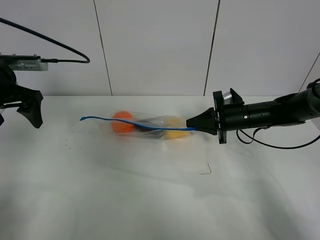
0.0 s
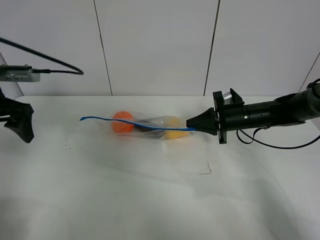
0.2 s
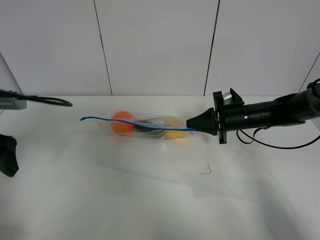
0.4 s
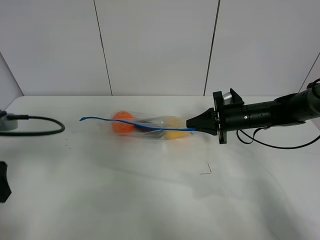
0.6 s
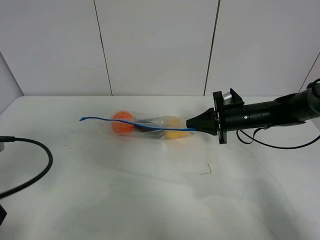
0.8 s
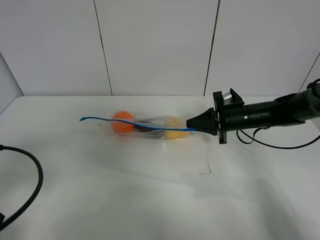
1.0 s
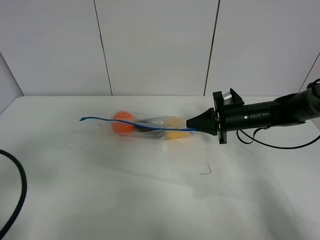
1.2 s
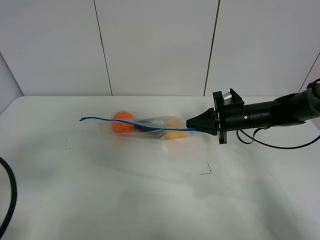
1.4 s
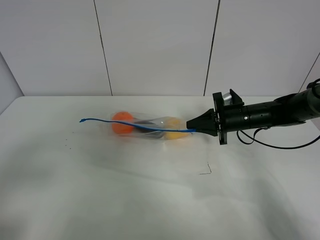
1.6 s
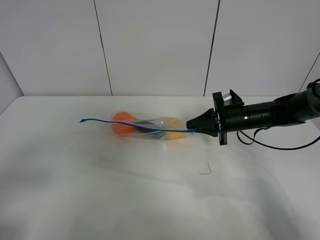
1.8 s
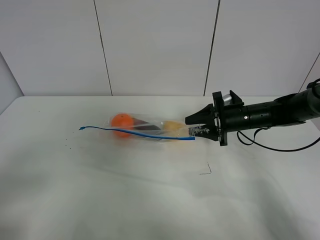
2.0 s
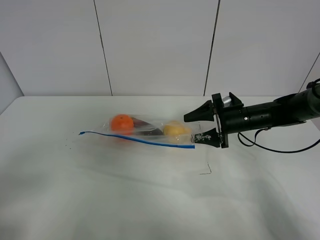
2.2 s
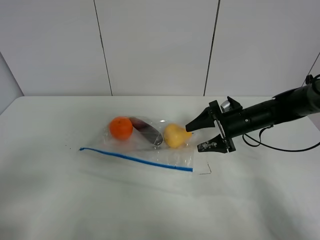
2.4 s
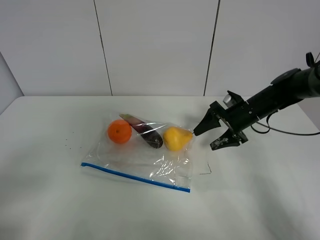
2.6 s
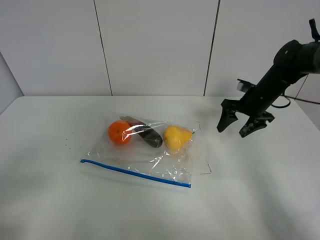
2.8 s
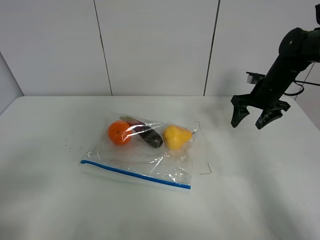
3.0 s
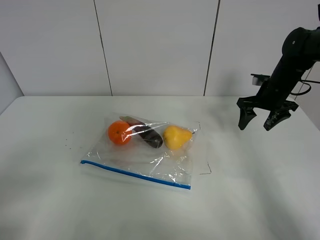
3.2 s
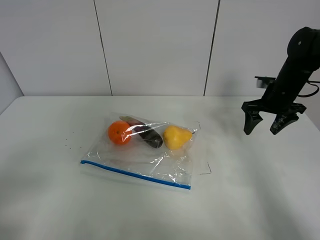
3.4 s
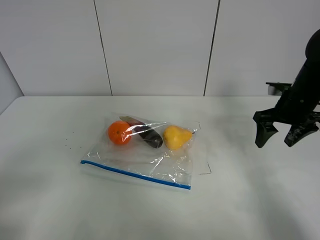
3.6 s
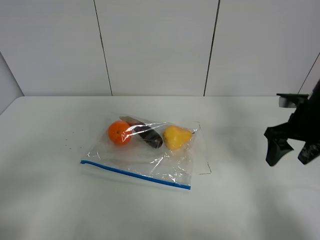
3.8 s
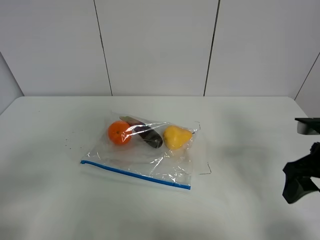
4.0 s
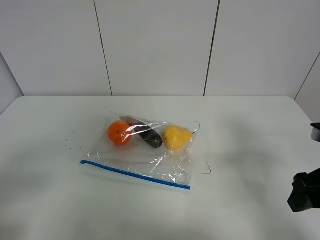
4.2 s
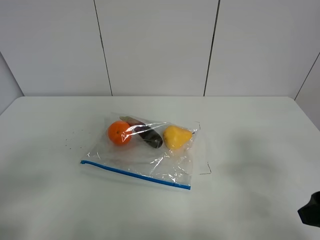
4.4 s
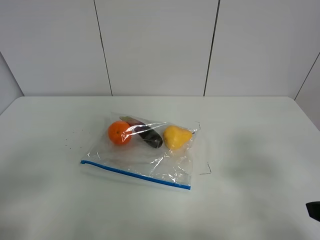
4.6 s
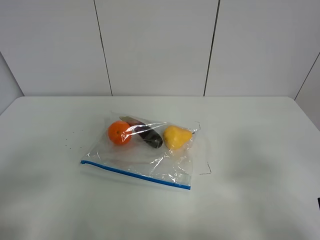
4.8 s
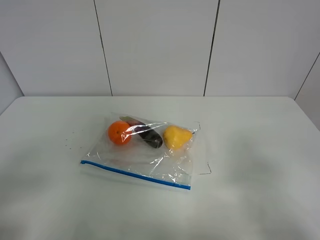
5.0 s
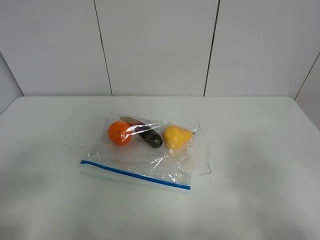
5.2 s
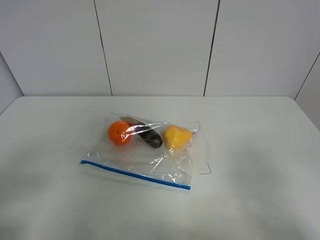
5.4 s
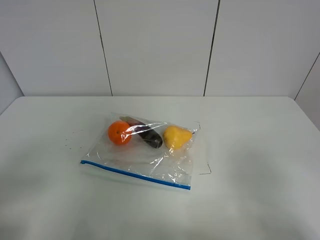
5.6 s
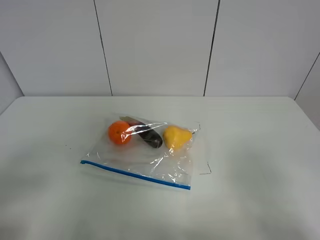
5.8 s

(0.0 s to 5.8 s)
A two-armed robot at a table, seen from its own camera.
0.0 s - 1.4 s: The left gripper heads backward, covering roughly 25 cm.
1.4 s - 2.8 s: The right gripper moves to the right and forward, about 10 cm, and opens its fingers. The left gripper goes roughly 5 cm backward.
2.8 s - 4.4 s: The right gripper is displaced backward by some 30 cm.
4.4 s - 5.8 s: The right gripper is displaced backward by roughly 10 cm.

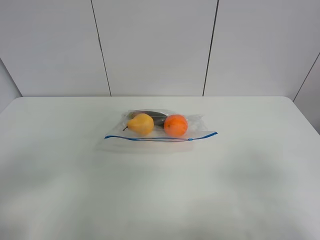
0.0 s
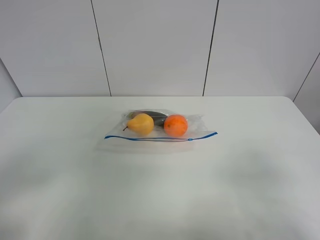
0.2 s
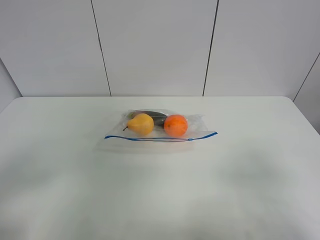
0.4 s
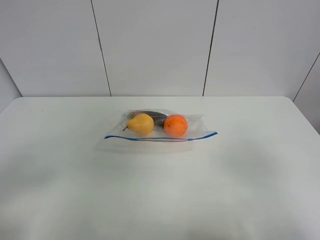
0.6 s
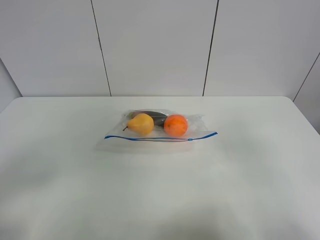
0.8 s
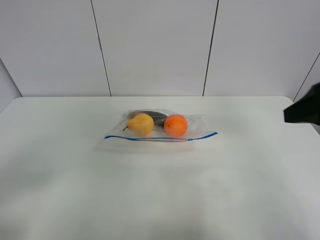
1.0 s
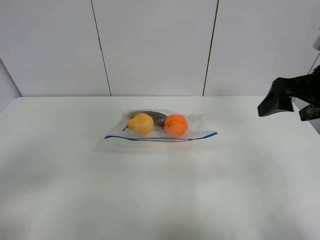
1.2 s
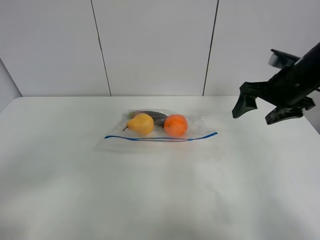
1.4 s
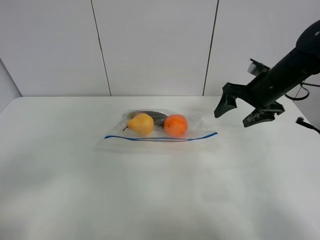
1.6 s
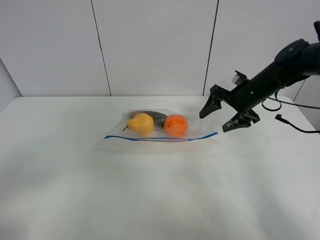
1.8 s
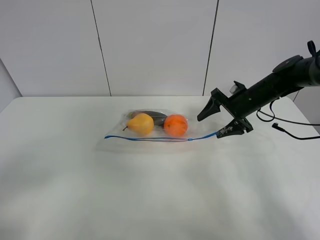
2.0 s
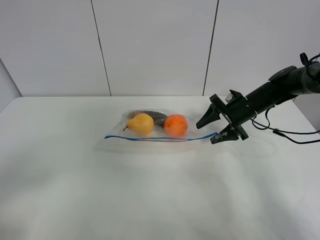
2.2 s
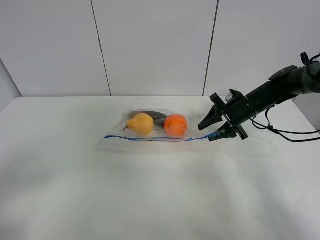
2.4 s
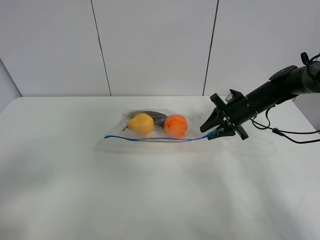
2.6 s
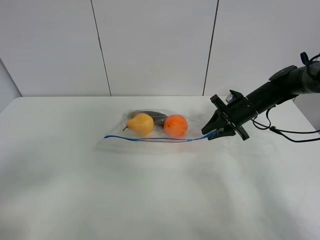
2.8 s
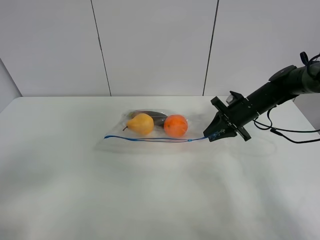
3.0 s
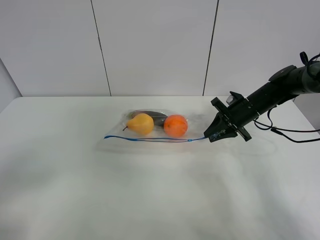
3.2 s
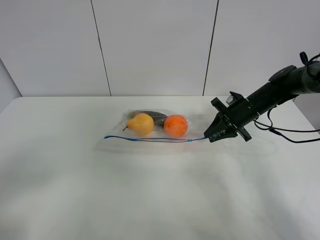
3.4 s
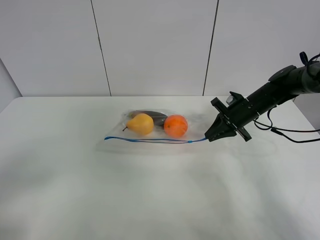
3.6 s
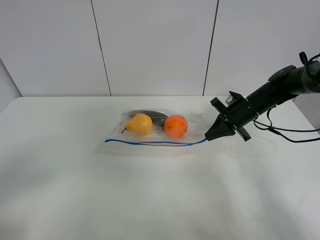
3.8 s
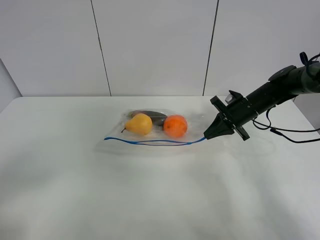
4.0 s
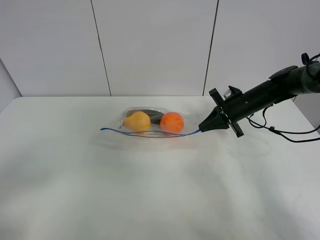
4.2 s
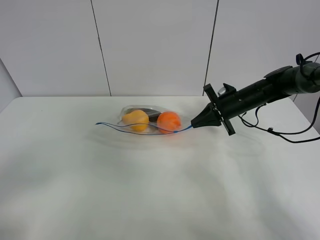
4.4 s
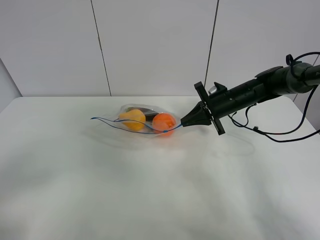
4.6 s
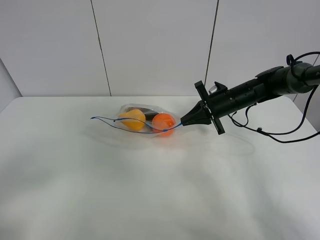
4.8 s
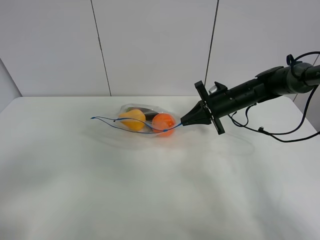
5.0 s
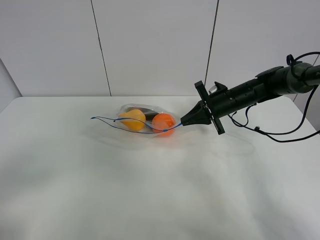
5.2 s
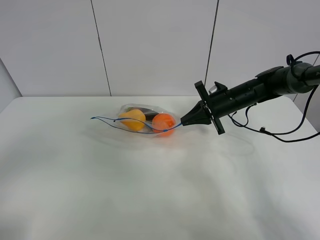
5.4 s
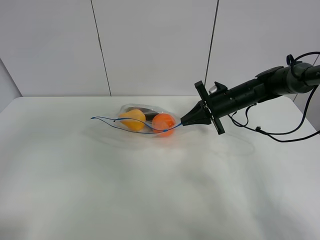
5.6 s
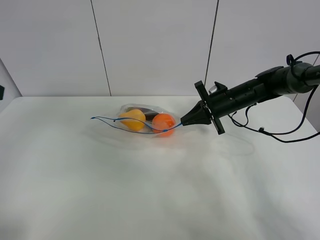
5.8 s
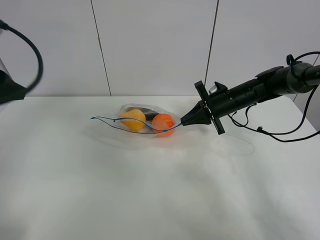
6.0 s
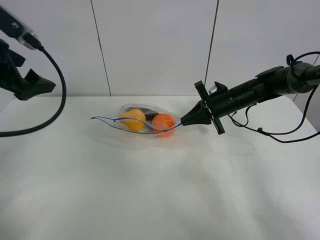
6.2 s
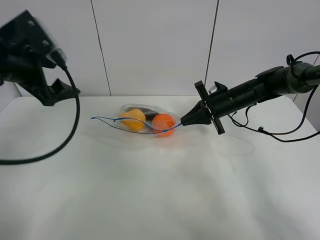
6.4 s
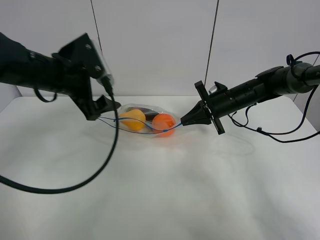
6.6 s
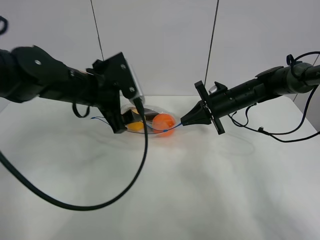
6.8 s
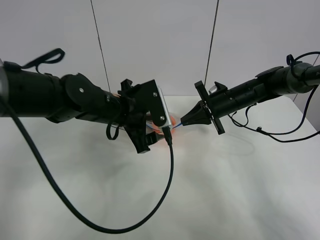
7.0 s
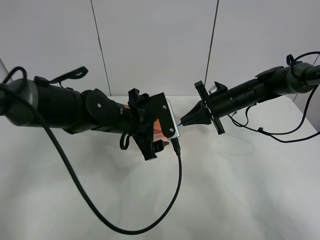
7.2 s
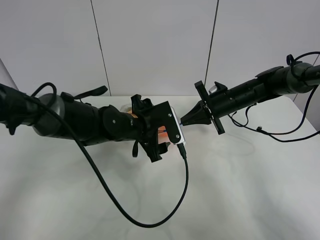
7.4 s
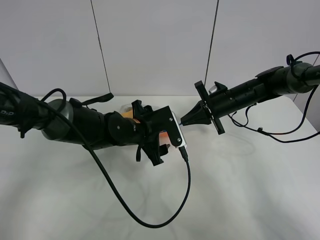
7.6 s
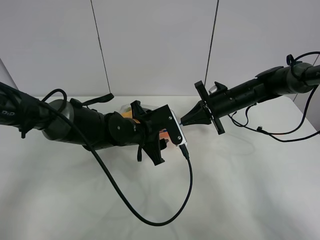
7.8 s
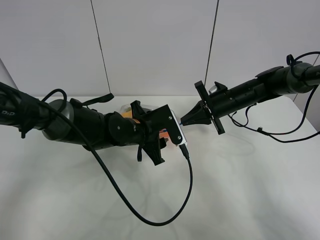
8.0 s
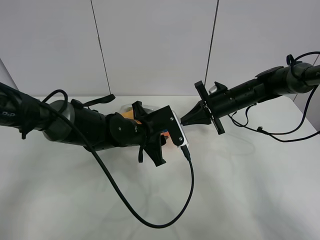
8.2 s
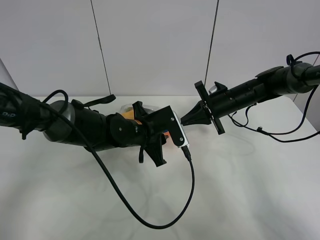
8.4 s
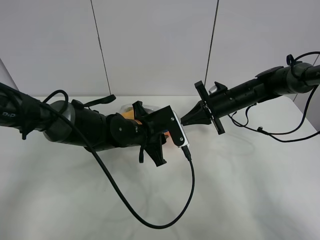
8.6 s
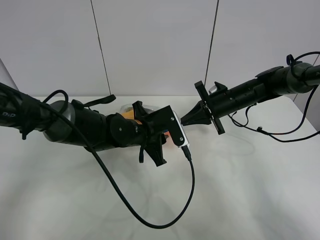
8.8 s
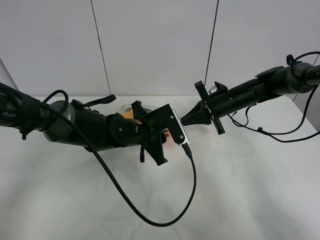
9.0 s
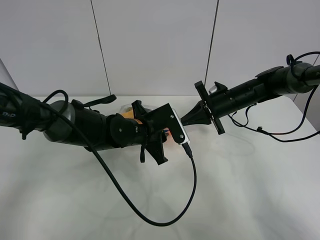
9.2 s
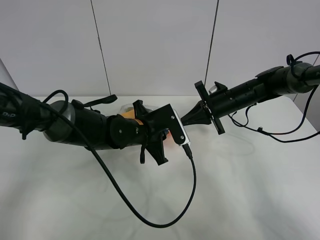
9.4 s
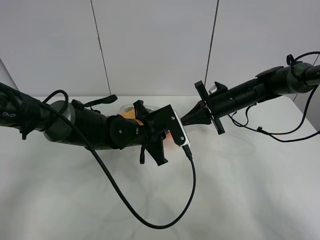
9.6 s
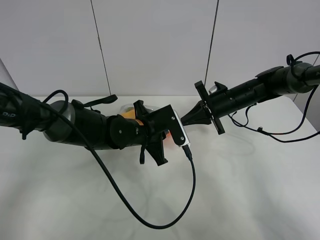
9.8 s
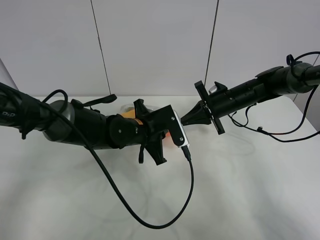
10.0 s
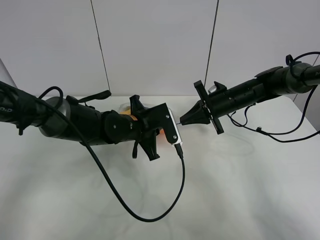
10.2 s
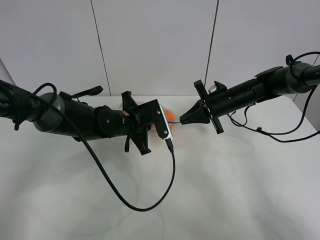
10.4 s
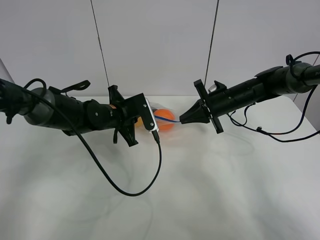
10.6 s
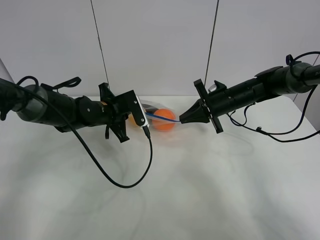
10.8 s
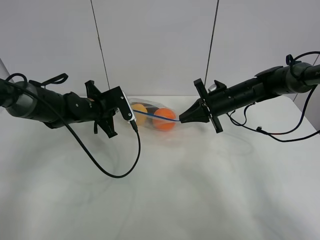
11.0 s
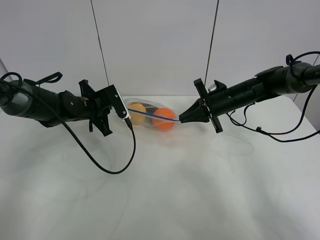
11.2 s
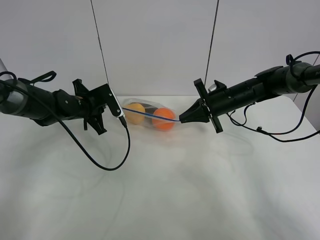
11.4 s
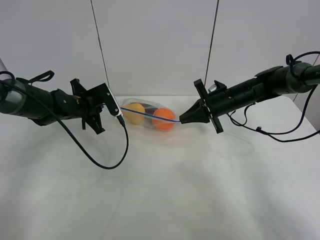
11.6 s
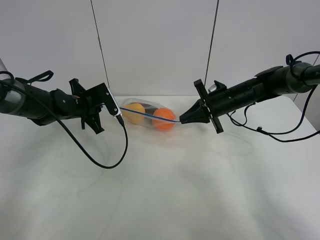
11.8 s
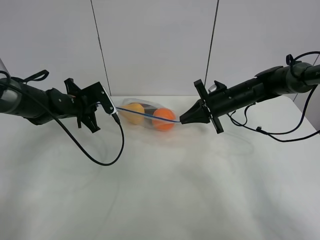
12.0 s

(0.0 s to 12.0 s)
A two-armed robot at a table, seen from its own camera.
Step, 0.0 s - 3.6 s: Grasp the fruit bag with right gripper.
Step, 3.8 s - 5.2 s: Lift the fruit bag with your right gripper.
0.0 s - 1.6 s: The right gripper goes roughly 35 cm forward.
1.6 s - 3.0 s: The right gripper is displaced downward by about 10 cm, and closes.
3.0 s - 4.4 s: The grippers stay close to where they were, moving slightly.
4.4 s - 6.0 s: The left gripper moves forward, about 25 cm.
6.0 s - 7.6 s: The left gripper heads to the right and downward, covering about 30 cm.
7.6 s - 9.0 s: The left gripper closes its fingers.
9.0 s - 10.4 s: The left gripper shifts by approximately 5 cm.
10.4 s - 12.0 s: The left gripper goes some 15 cm to the left.

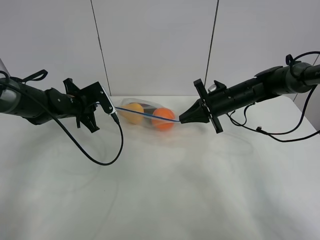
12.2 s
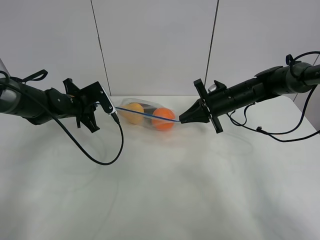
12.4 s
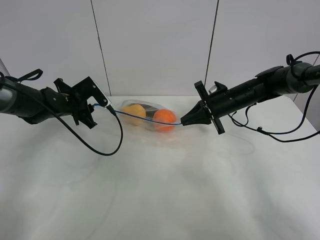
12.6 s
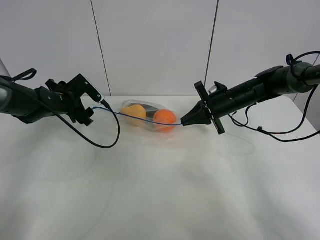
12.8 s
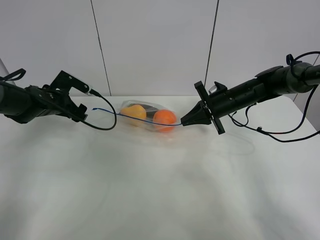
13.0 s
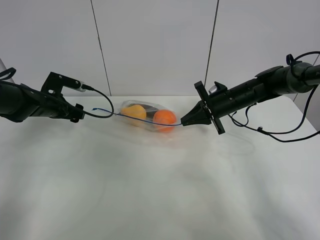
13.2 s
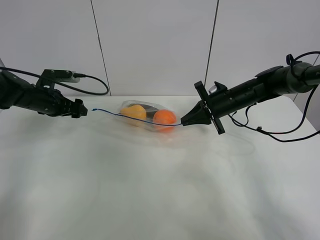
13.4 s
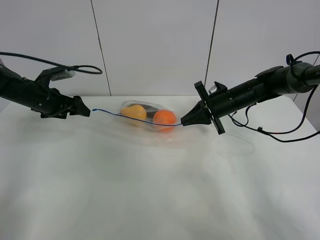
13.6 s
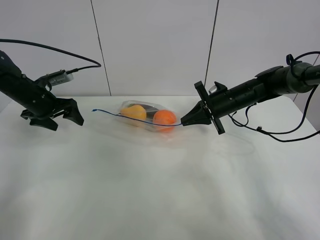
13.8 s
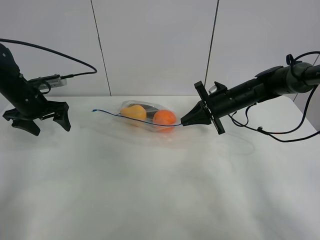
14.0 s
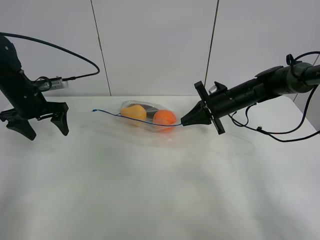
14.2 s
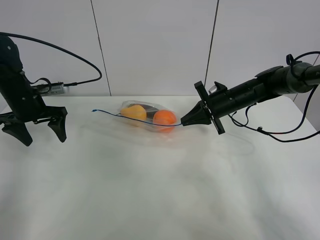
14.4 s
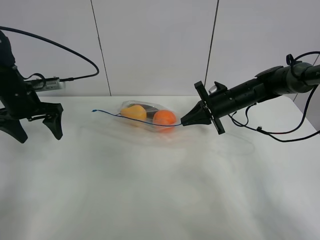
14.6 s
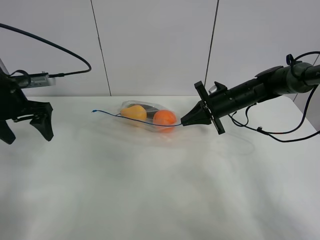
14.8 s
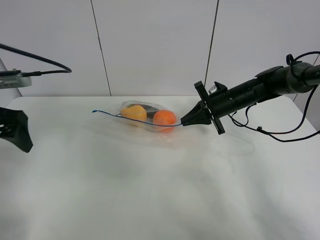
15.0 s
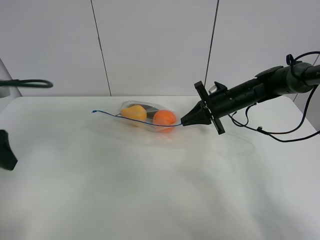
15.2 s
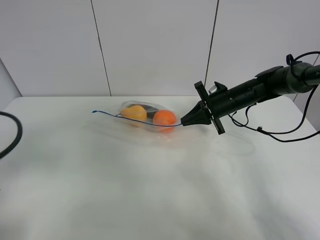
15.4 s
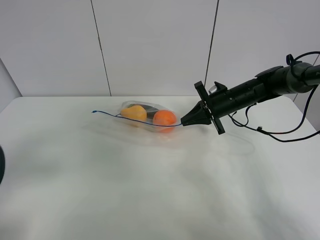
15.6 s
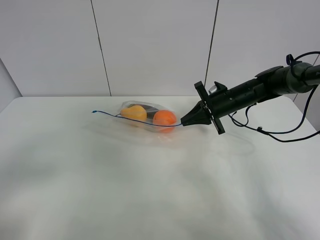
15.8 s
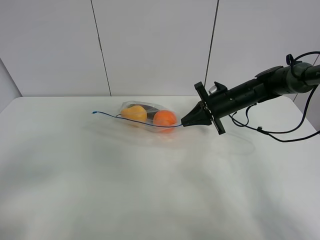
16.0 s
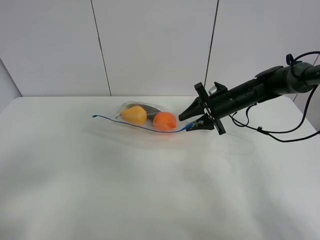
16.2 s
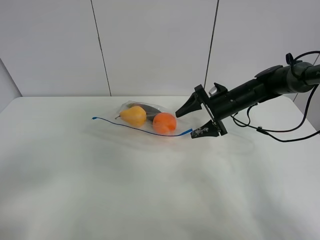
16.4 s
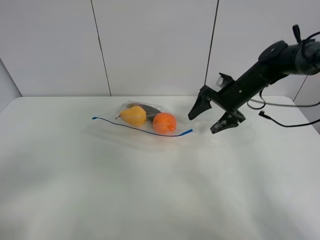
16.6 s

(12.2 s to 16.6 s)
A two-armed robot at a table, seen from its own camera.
12.2 s - 13.6 s: The left gripper shifts some 10 cm to the left, and opens.
13.6 s - 15.2 s: The left gripper shifts approximately 25 cm backward and upward.
15.2 s - 16.6 s: The right gripper opens; the left gripper shifts approximately 15 cm backward.
